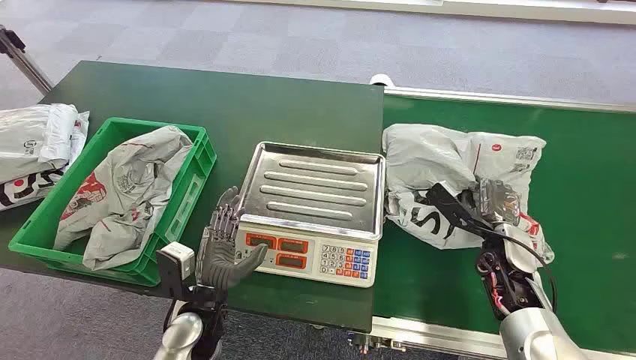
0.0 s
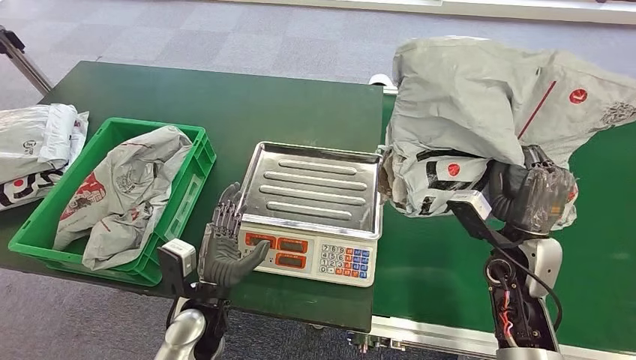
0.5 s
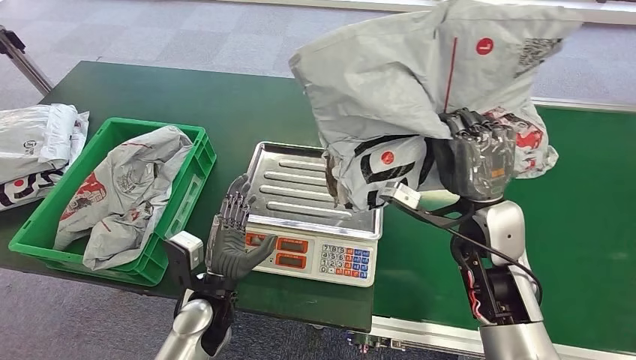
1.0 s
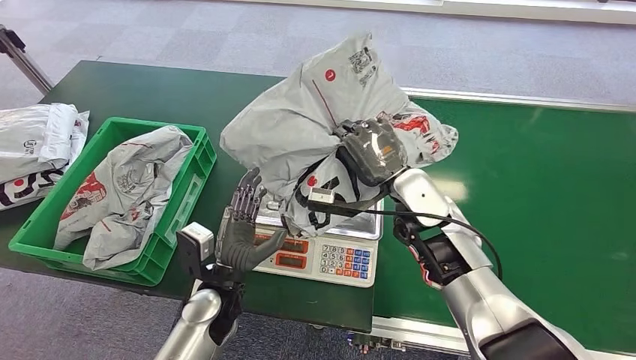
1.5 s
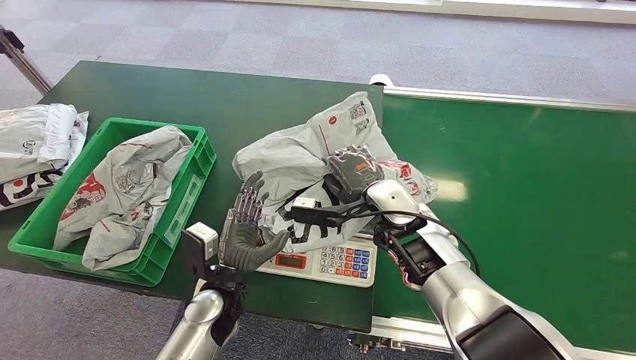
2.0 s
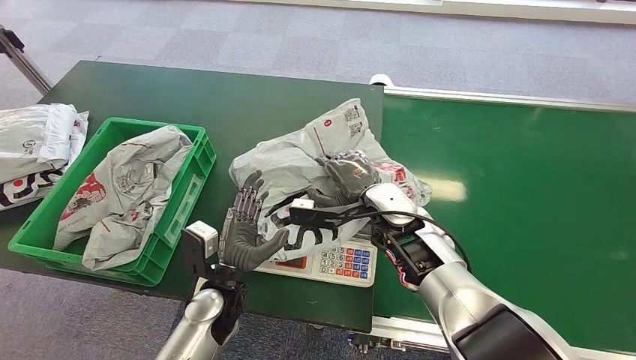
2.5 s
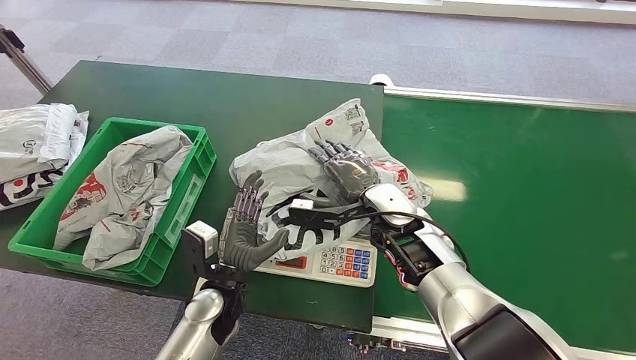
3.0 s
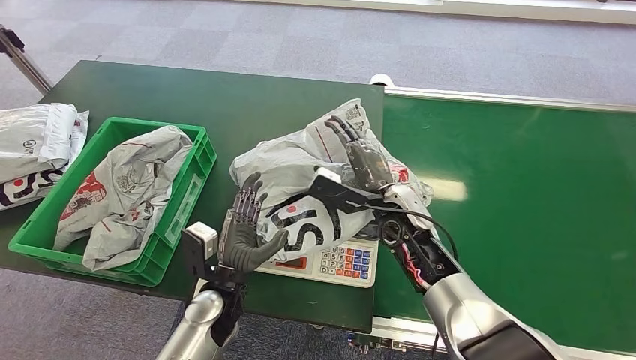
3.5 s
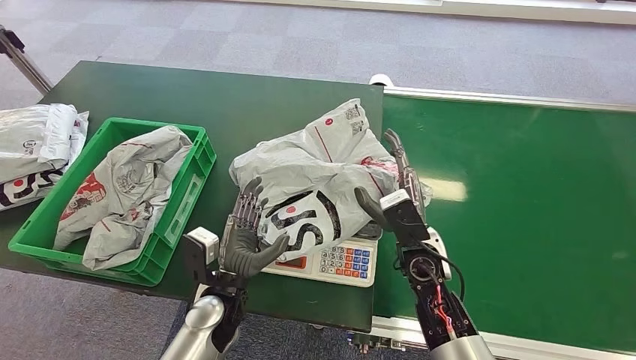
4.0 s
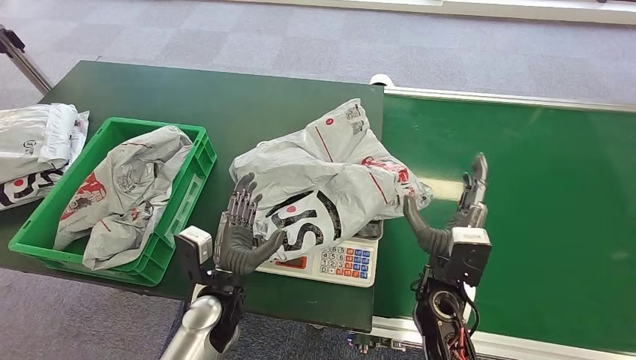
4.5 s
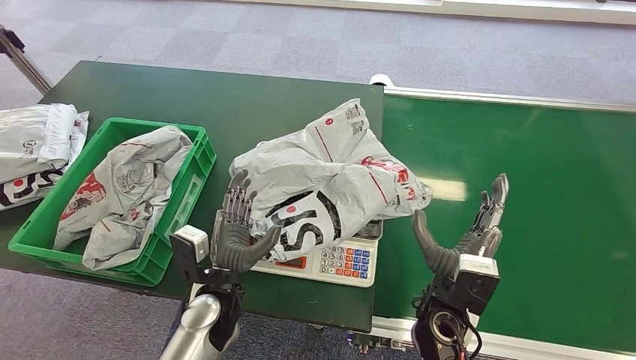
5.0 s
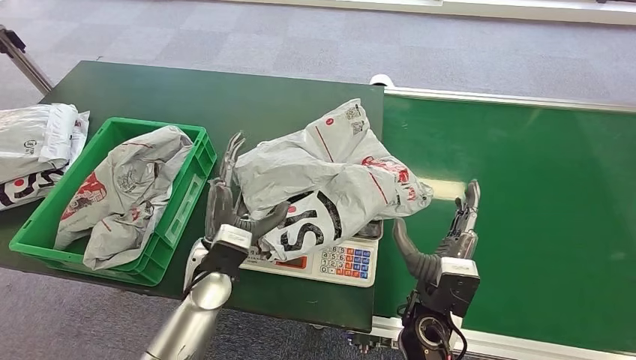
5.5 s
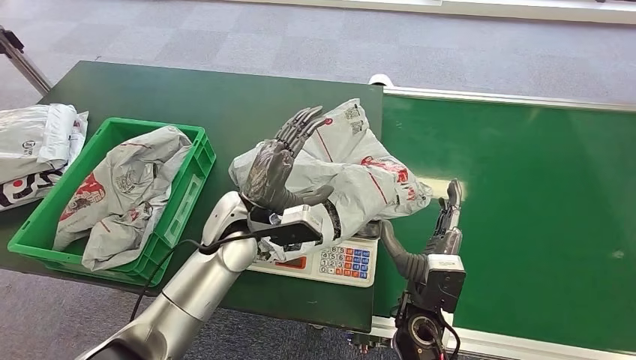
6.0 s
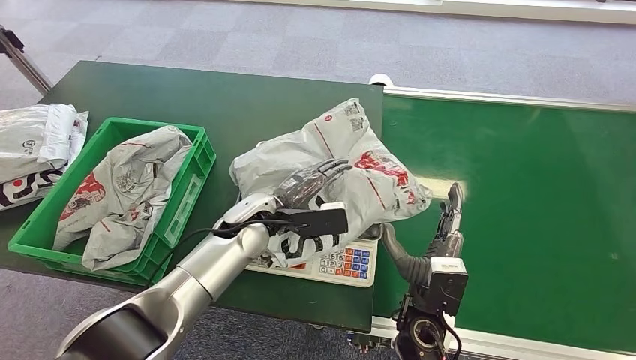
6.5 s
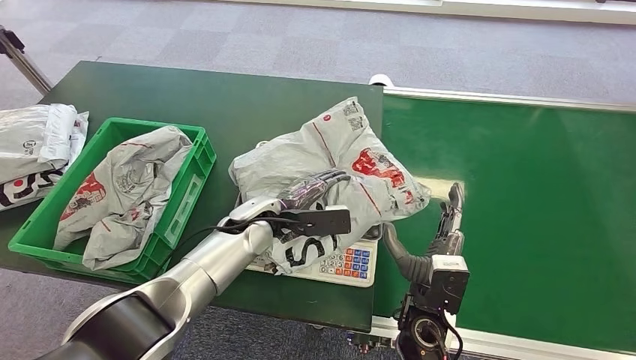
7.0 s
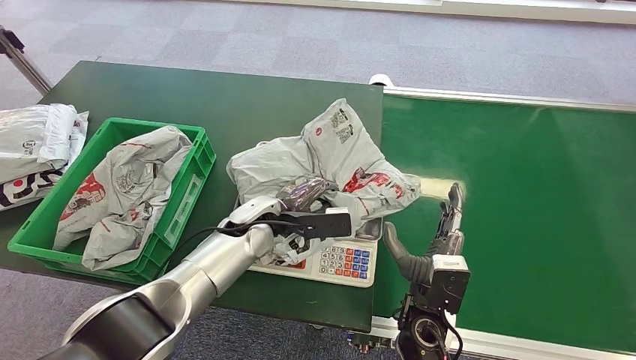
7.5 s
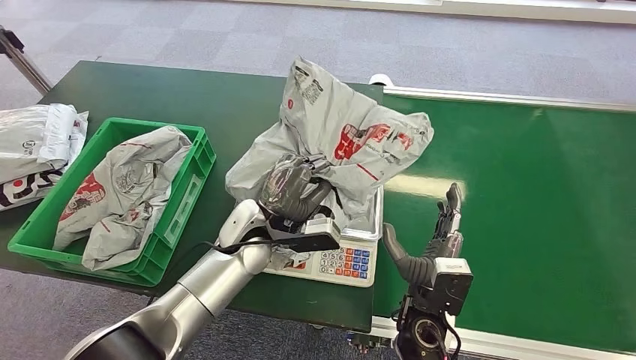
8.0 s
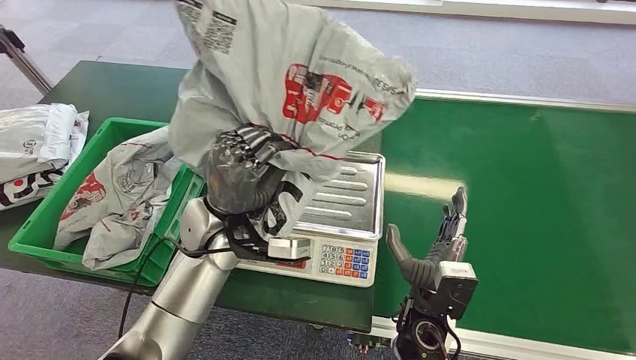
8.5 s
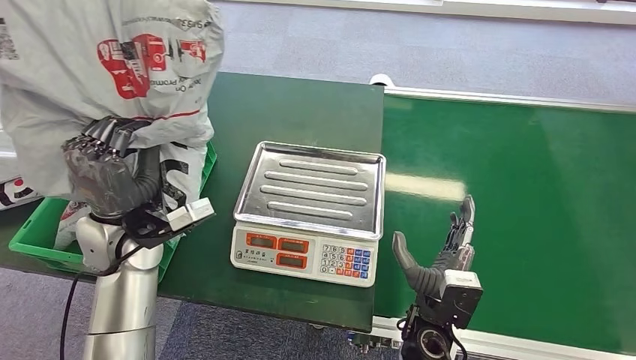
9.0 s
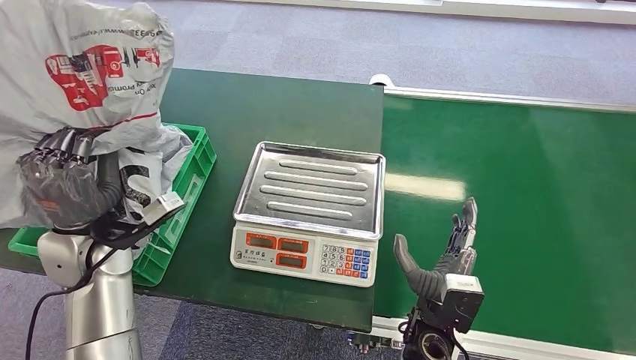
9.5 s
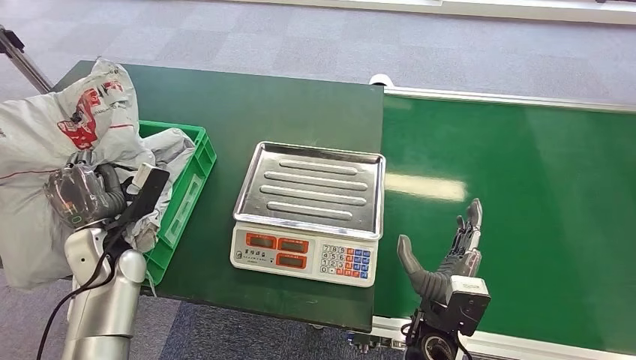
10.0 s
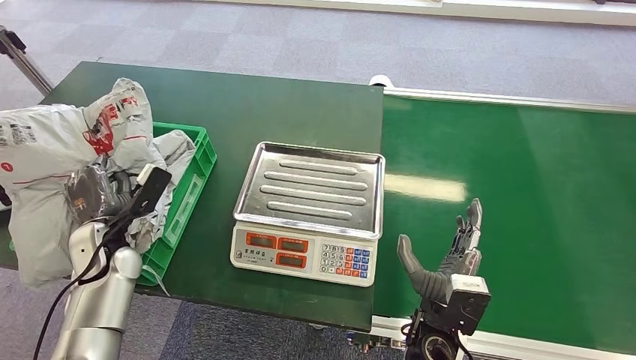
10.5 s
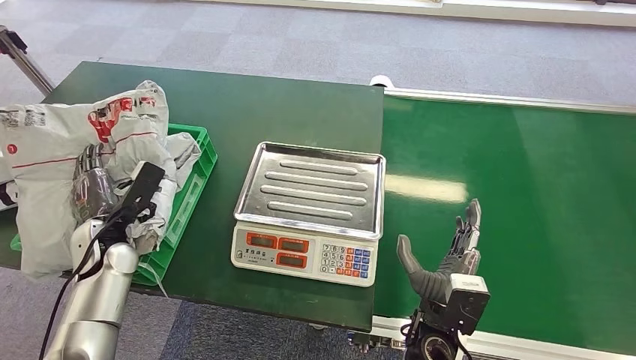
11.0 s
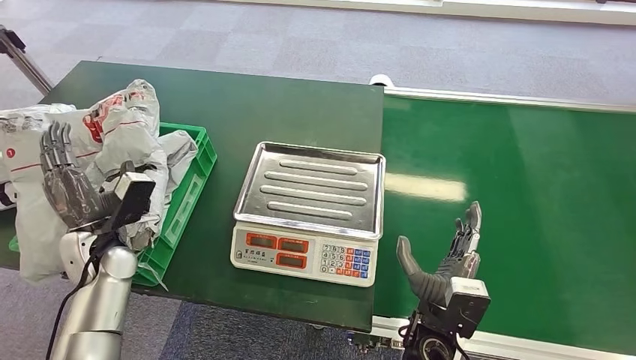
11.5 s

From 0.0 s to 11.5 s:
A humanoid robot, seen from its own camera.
Step, from 0.0 s to 0.5 s: Pick up the package from the conveyor belt.
Step, from 1.5 s to 3.0 s: Place the package onto the inbound machine.
Step, from 8.0 s to 8.5 s: Pick up the package from the inbound machine.
Step, from 10.0 s to 11.5 s: Place the package into the parcel locker.
From 2.0 s to 4.0 s: The right hand moves backward and downward, approximately 10 cm.
From 4.0 s to 6.0 s: The right hand heads backward, covering approximately 10 cm; the left hand is displaced upward and forward by some 15 cm.
From 6.0 s to 7.5 s: The left hand shifts by about 5 cm.
From 9.5 s to 11.5 s: The left hand travels downward by roughly 5 cm.
